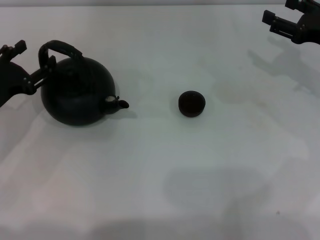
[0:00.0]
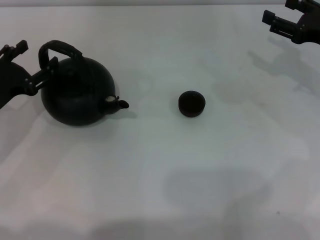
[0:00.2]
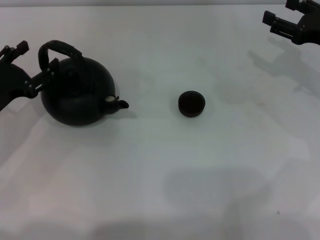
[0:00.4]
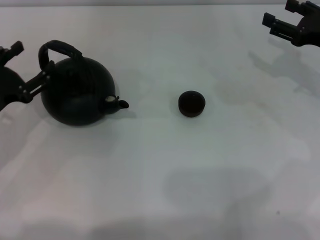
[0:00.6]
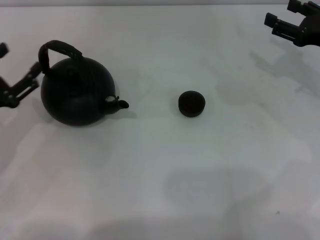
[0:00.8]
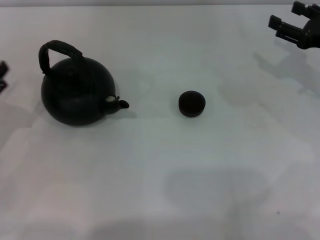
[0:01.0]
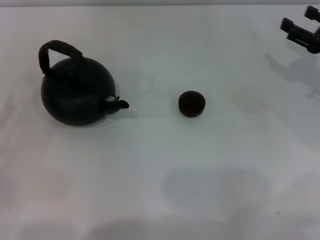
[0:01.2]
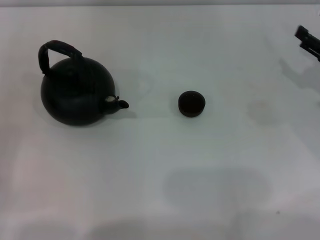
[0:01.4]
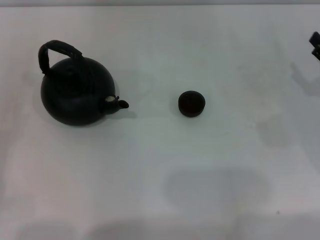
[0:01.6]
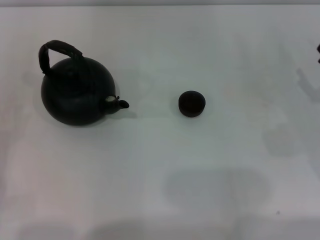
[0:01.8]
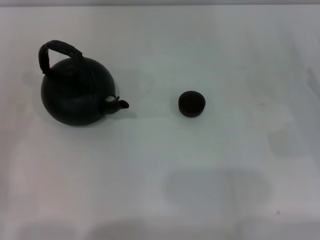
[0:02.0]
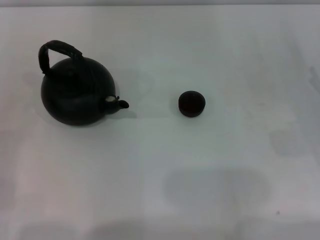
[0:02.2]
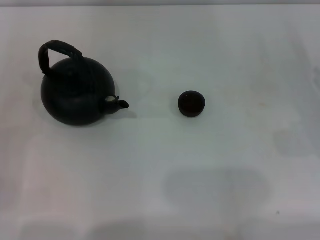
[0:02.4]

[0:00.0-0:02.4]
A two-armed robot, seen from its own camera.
Task of the whole recording: Grasp the handle of the teapot with one hand and pour tea into the teacup.
0:00.0 to 0:01.2: The left gripper goes about 10 cm backward and to the left.
0:01.2 to 0:02.4: The right gripper shifts about 10 cm backward and downward.
